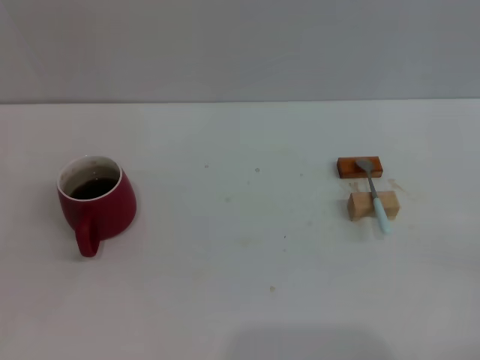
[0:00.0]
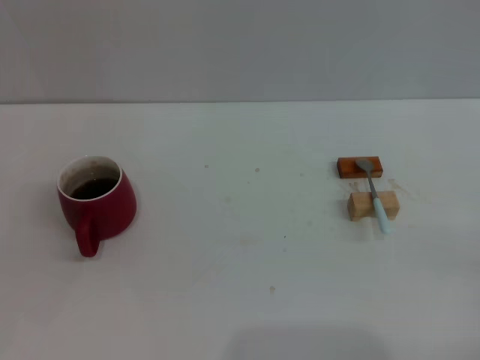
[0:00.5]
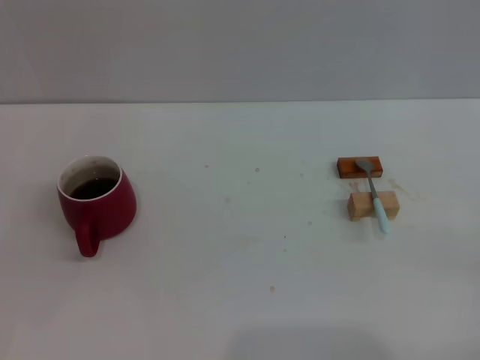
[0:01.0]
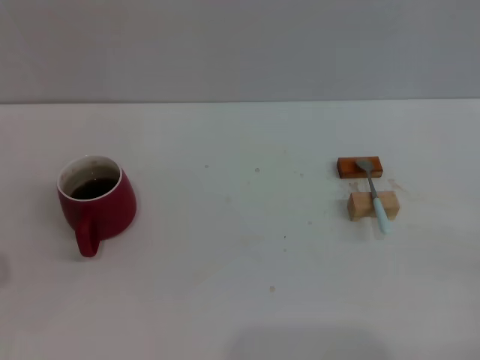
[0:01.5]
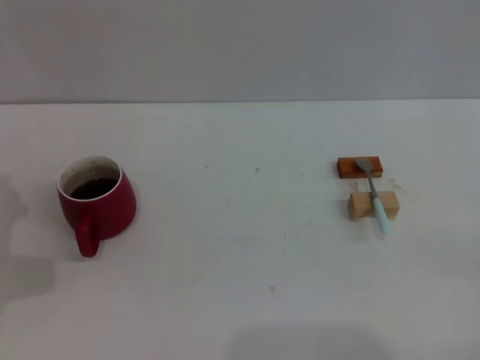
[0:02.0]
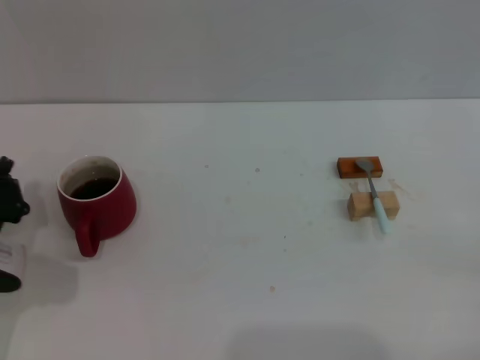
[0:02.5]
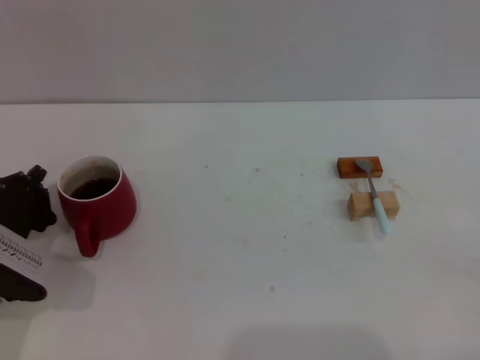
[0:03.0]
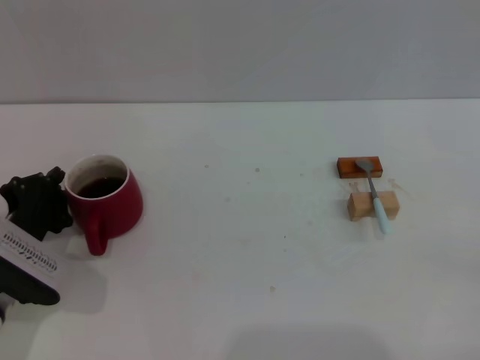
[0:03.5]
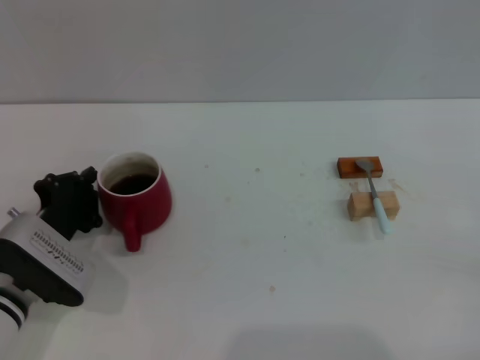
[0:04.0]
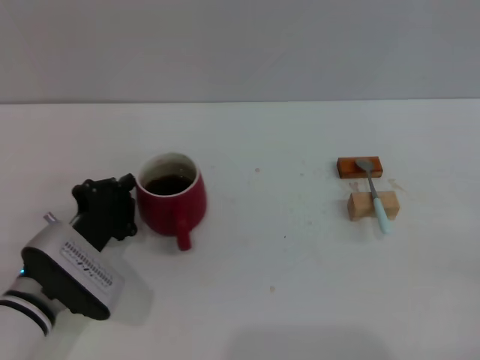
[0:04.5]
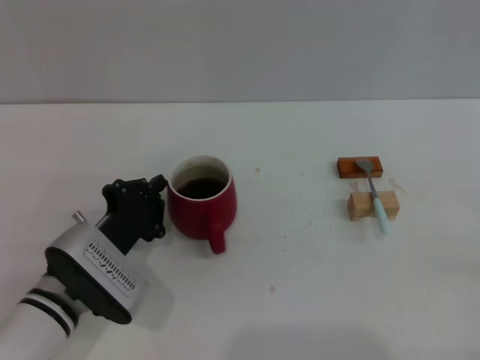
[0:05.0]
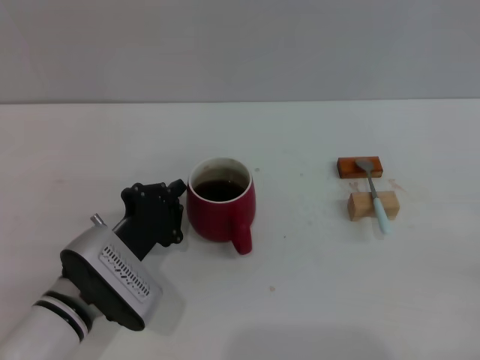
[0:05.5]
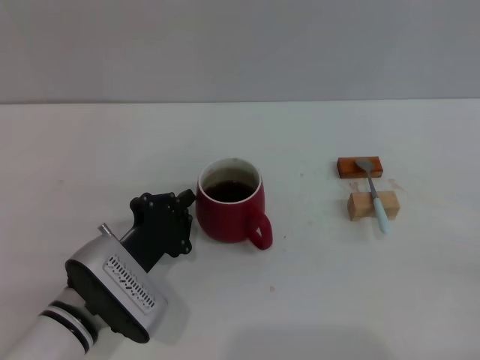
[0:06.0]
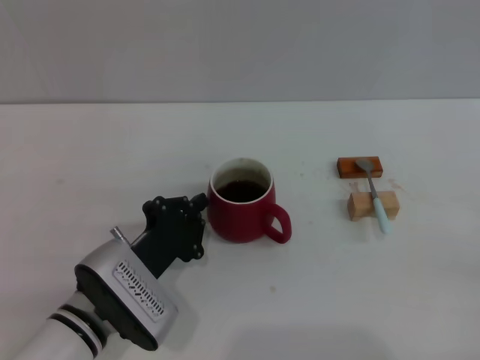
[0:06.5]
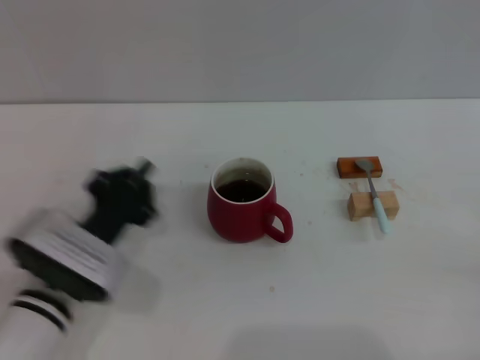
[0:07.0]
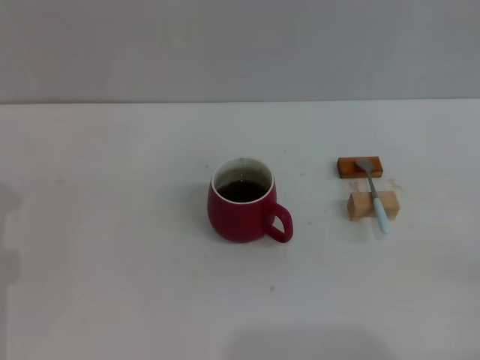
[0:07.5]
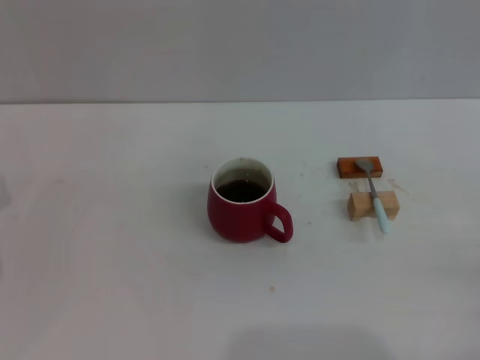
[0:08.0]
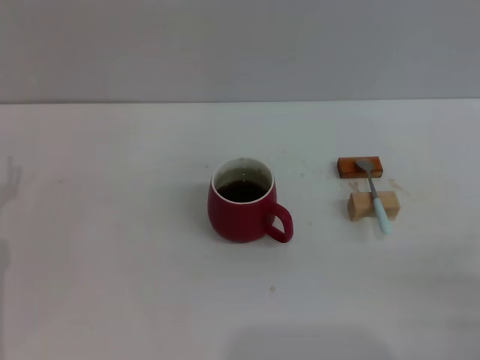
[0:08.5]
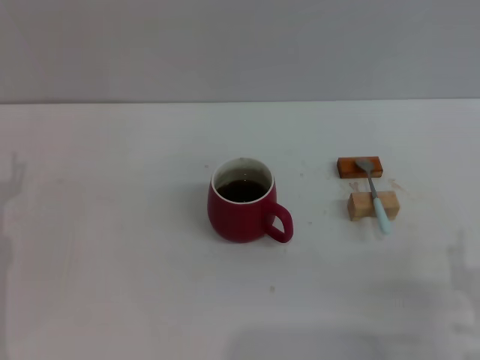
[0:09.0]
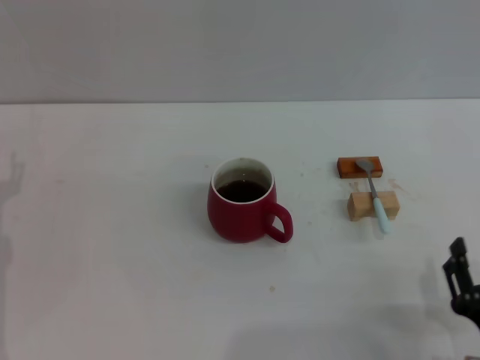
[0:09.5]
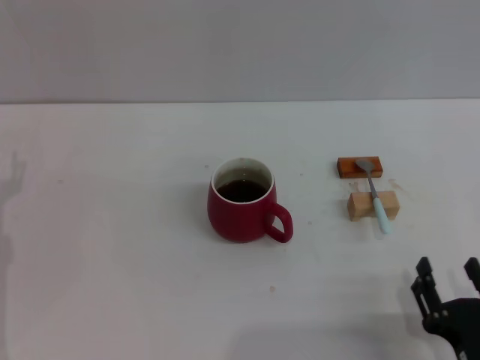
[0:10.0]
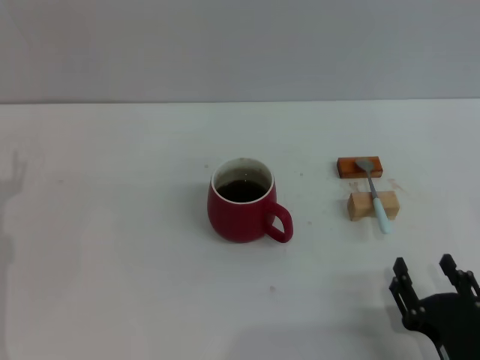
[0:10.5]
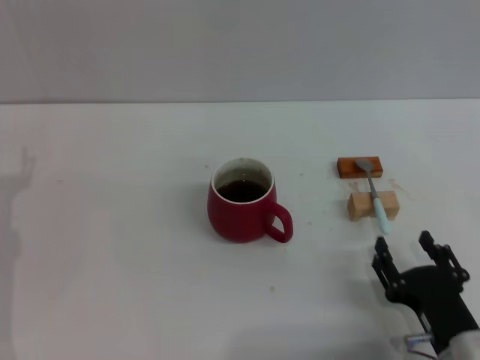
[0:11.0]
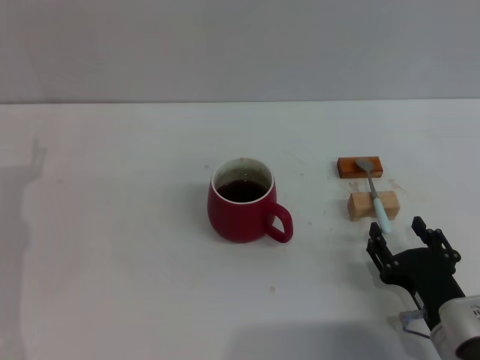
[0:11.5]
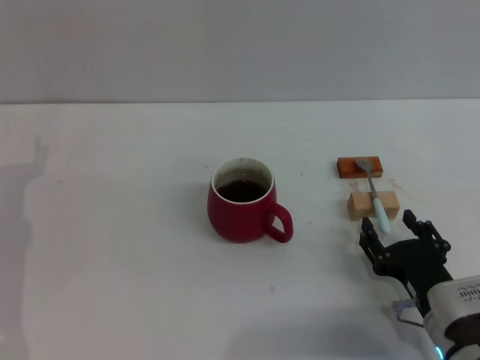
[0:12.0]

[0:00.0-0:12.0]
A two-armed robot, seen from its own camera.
Task of the whole recording: Move the red cup to the center, lift the blue spoon, stir it three times in the cup, and put the spoon into the cup.
Step, 0:00.0 to 0:06.5: Move the cup with coffee to the center of view with the left gripper.
0:02.0 to 0:04.0: The left gripper travels to the right by roughly 5 cm.
0:04.0 to 0:06.0: The left gripper moves to the right, about 10 cm.
0:06.0 to 0:08.0: The left gripper goes roughly 15 cm to the left.
0:08.0 to 0:10.0: The right gripper goes roughly 15 cm to the left.
0:10.0 to 0:12.0: The right gripper travels forward by about 10 cm.

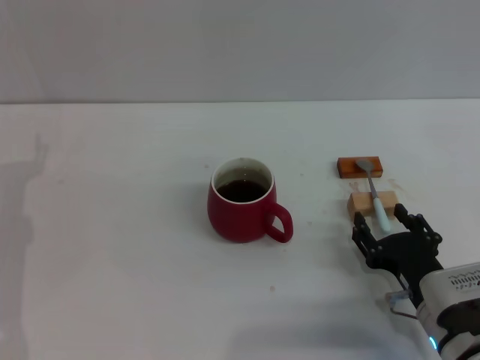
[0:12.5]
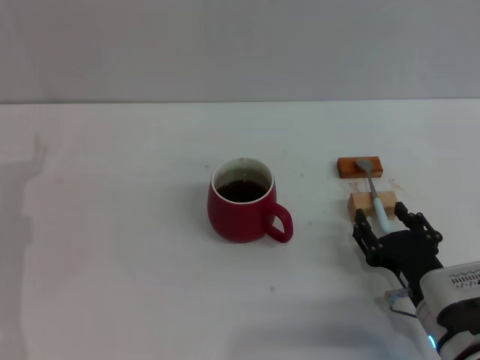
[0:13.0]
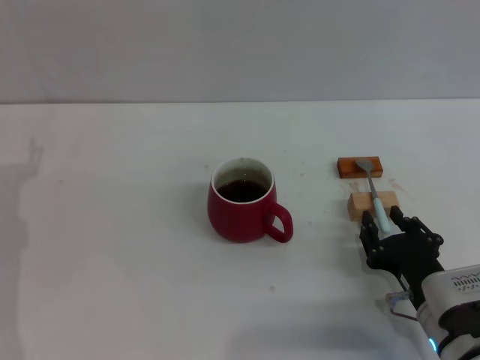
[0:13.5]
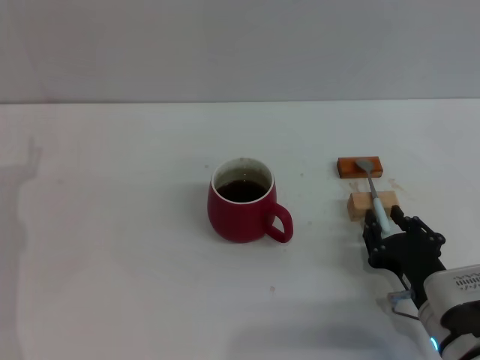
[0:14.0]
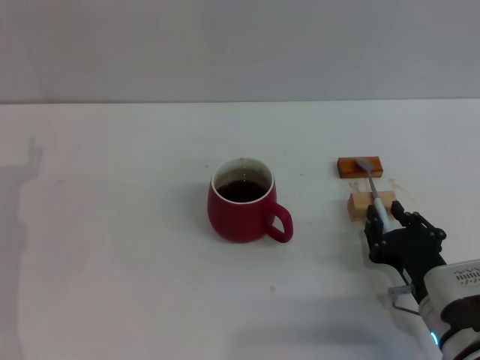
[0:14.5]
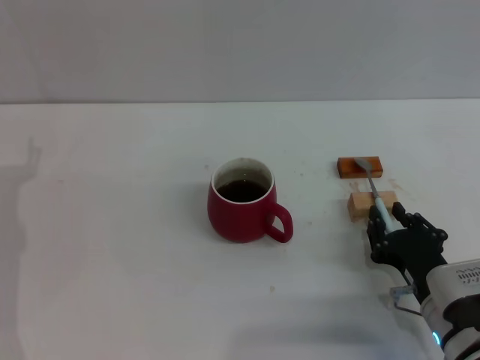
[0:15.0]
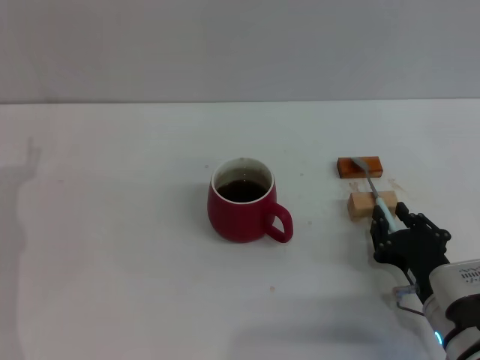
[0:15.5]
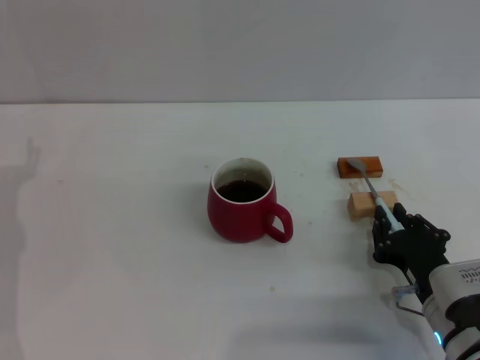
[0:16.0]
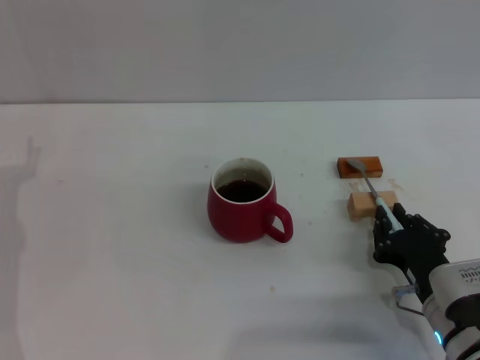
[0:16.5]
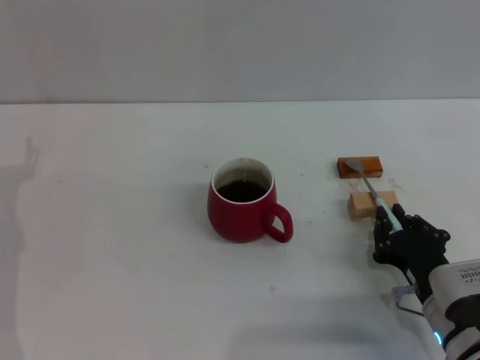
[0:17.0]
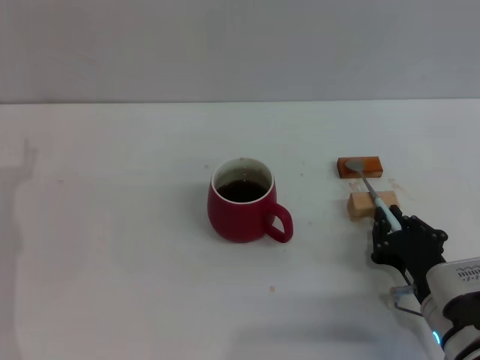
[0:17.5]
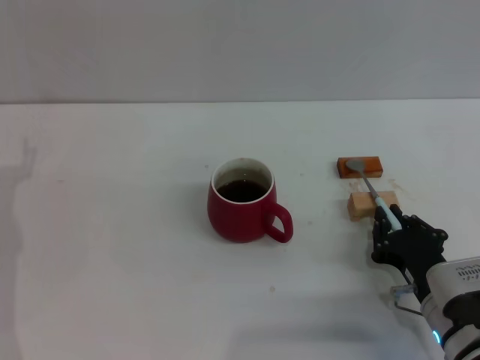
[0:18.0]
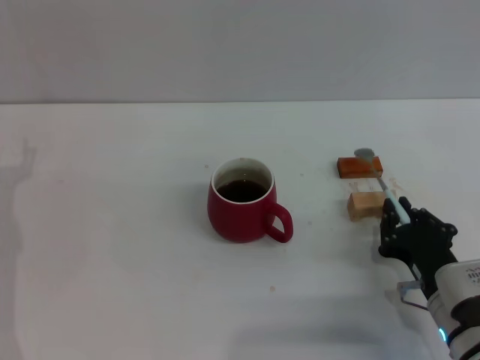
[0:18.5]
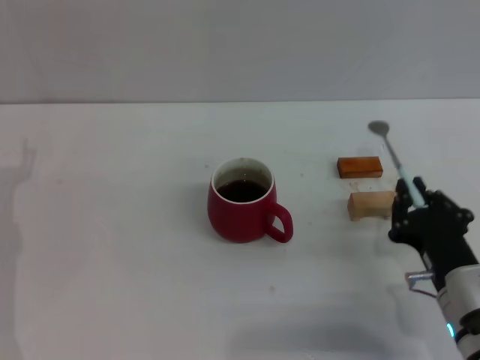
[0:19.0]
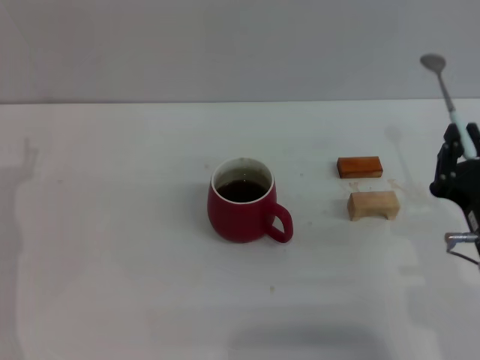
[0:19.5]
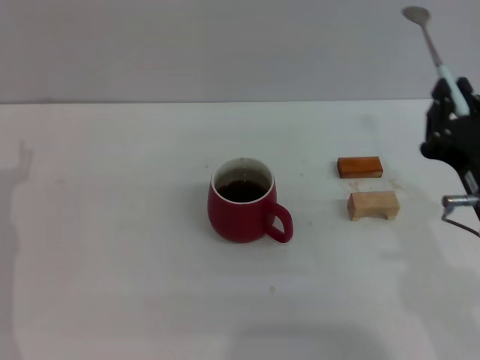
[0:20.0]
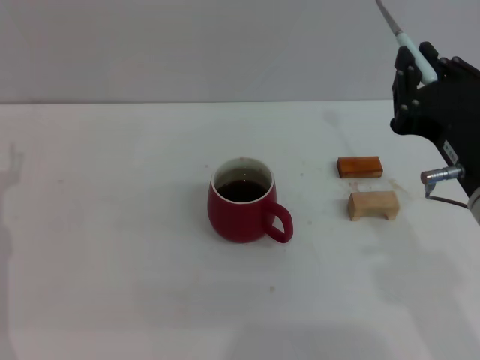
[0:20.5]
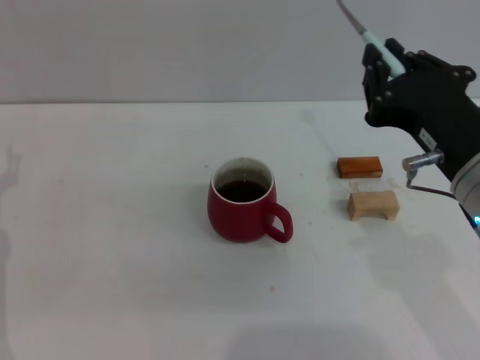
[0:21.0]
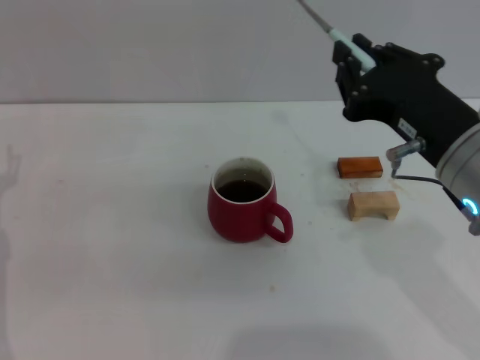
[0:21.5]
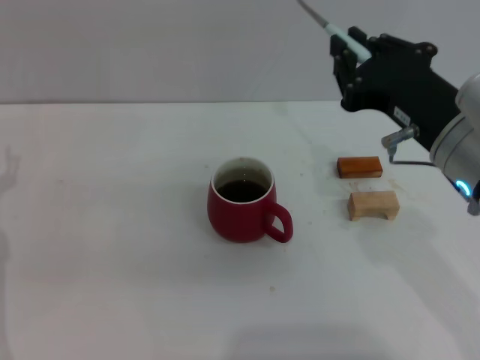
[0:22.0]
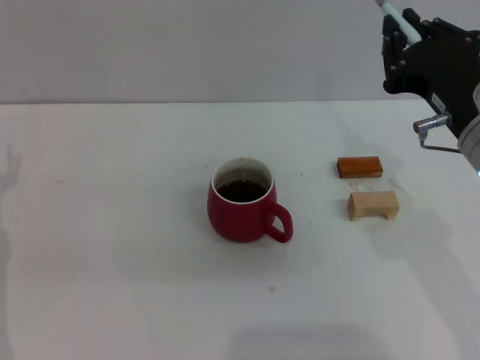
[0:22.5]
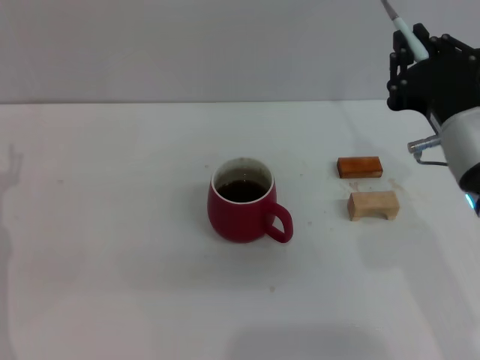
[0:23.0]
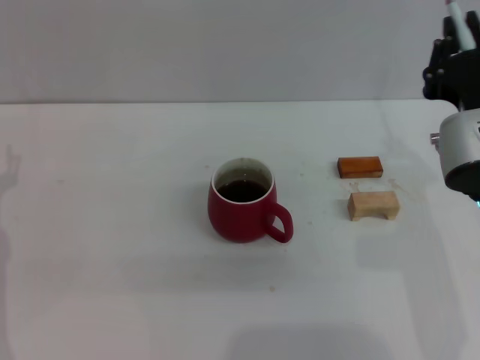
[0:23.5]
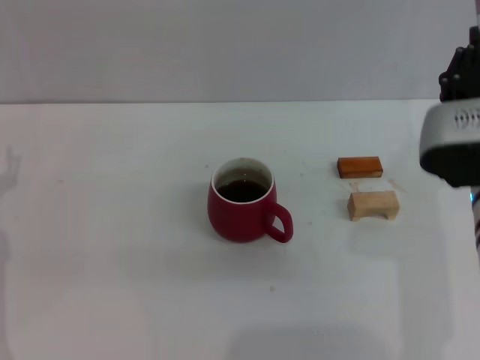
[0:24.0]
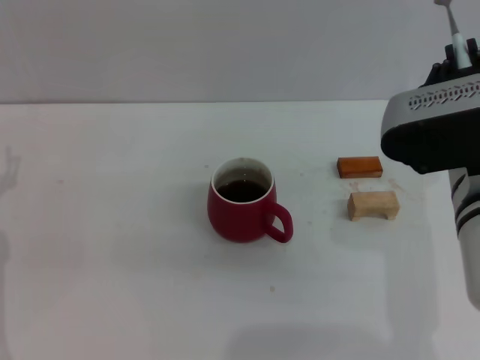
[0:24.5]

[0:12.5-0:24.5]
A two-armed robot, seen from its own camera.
Task of the whole recording: Move the red cup to the center, lift the blue spoon, stir it three times in the cup, and put the spoon into the cup.
Step, 0:12.5 to 0:19.0: Pick up the spoon with the right gripper.
0:12.5 to 0:18.5: The two grippers keep their place.
0:18.5 to 0:20.5: The right gripper is displaced upward by about 20 cm.
0:20.5 to 0:22.5: The right gripper moves forward, about 5 cm.

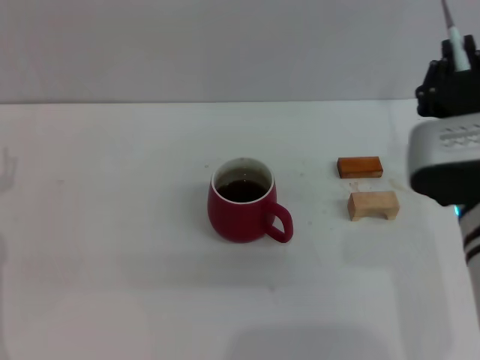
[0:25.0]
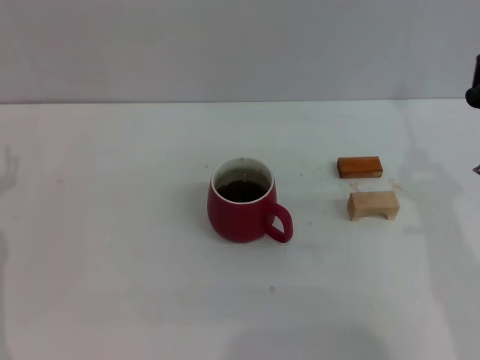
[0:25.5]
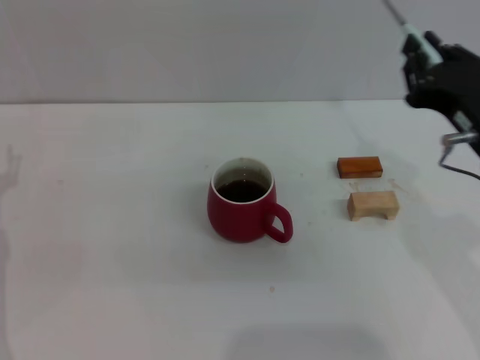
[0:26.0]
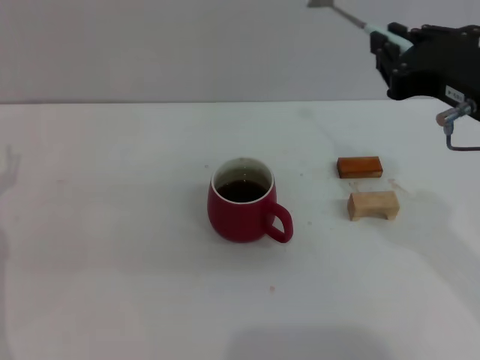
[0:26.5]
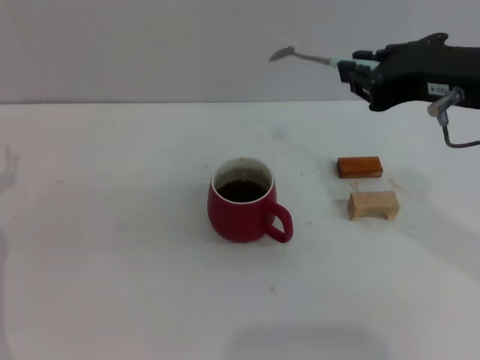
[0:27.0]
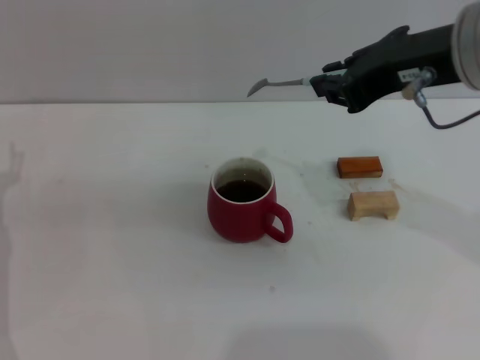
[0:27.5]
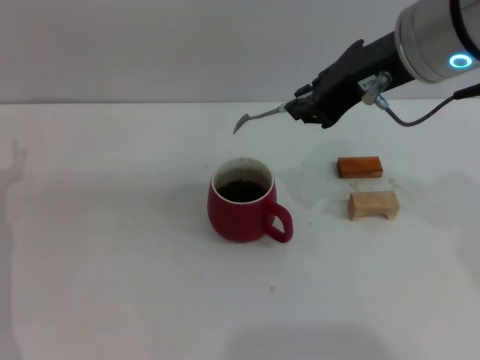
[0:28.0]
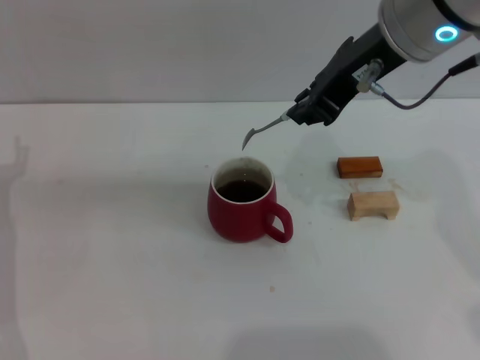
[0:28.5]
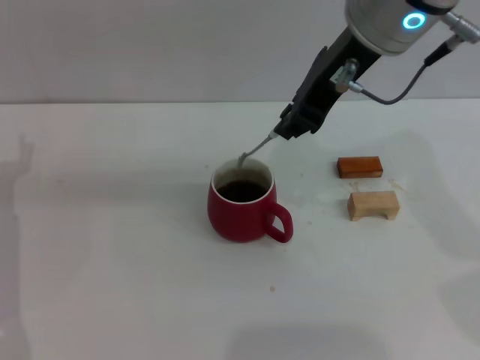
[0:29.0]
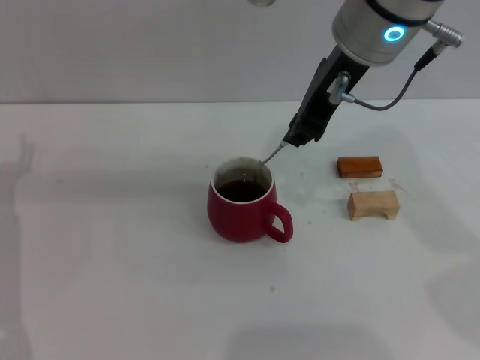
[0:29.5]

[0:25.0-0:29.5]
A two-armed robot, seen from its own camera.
Task of the whole recording: Move the red cup to the center, lift the blue spoon, stir it three times in the cup, and put the spoon into the cup.
0:25.0 to 0:27.0: The right gripper shifts approximately 10 cm upward.
0:27.0 to 0:29.5: The right gripper shifts approximately 15 cm to the left and forward.
